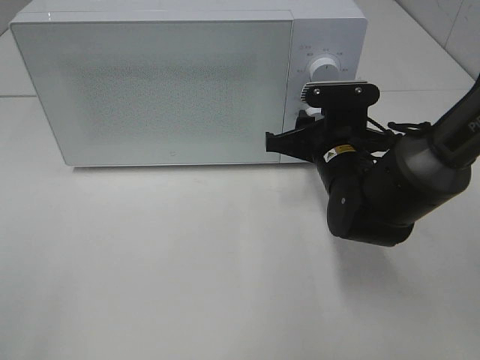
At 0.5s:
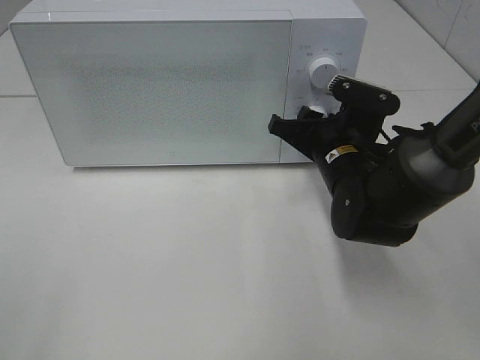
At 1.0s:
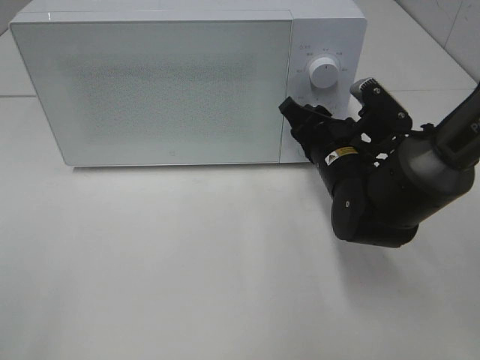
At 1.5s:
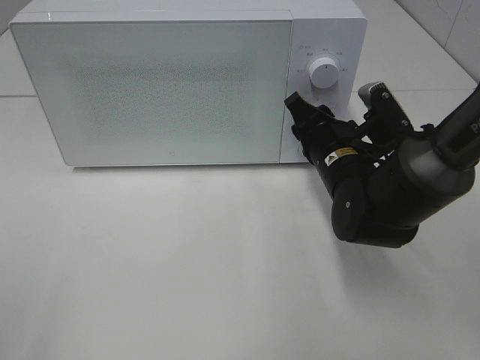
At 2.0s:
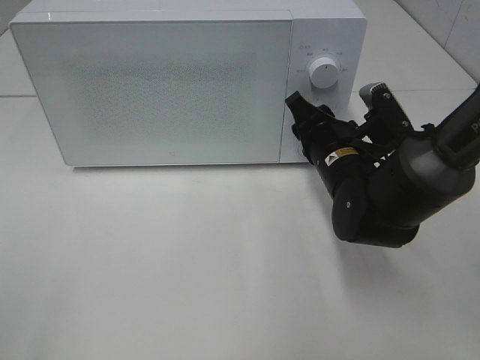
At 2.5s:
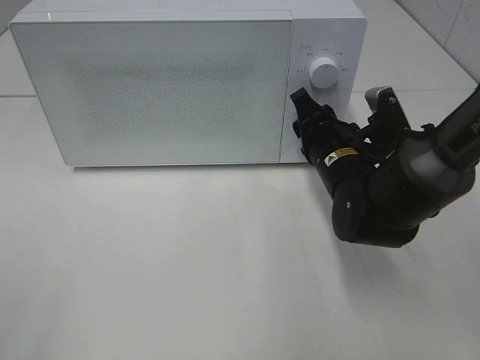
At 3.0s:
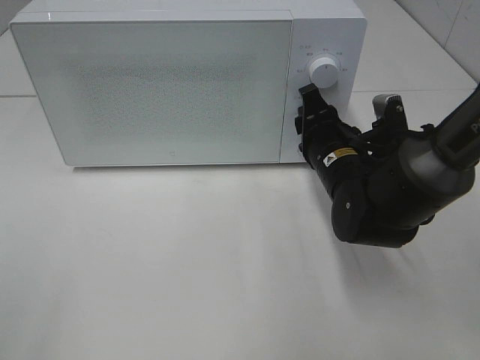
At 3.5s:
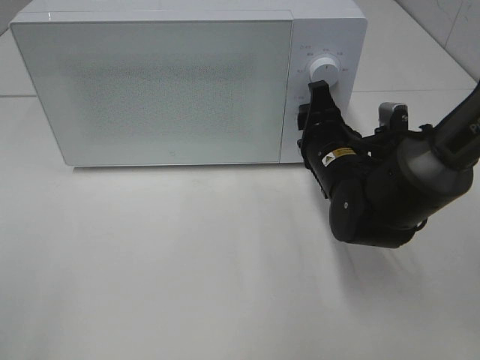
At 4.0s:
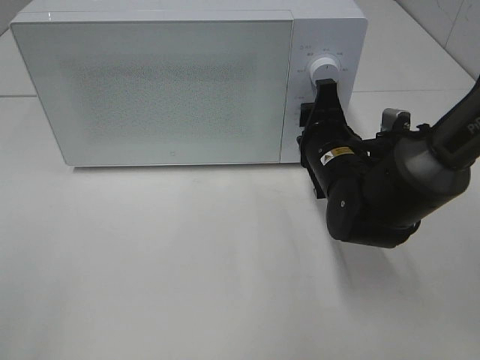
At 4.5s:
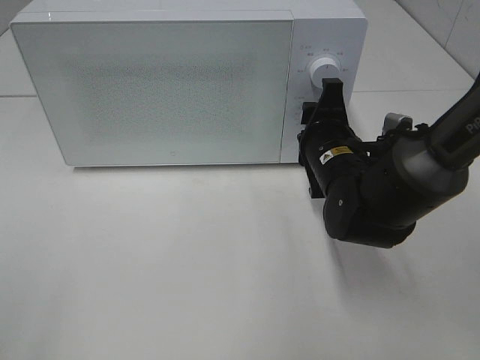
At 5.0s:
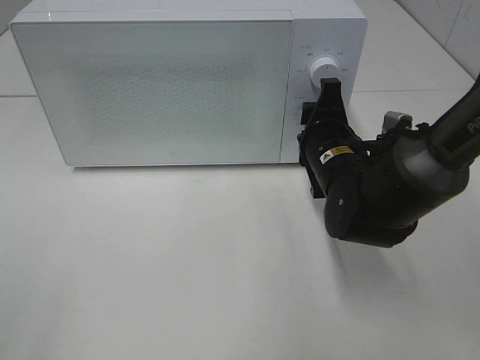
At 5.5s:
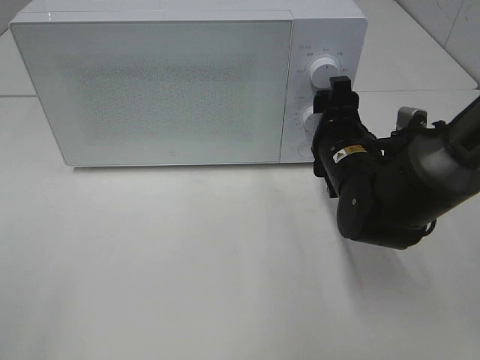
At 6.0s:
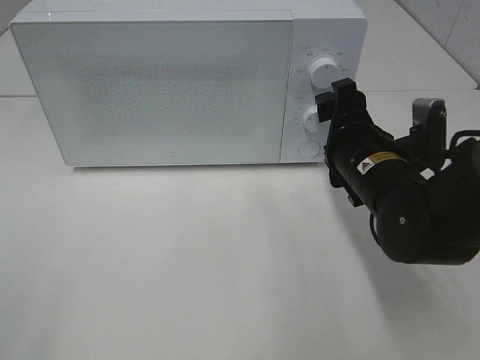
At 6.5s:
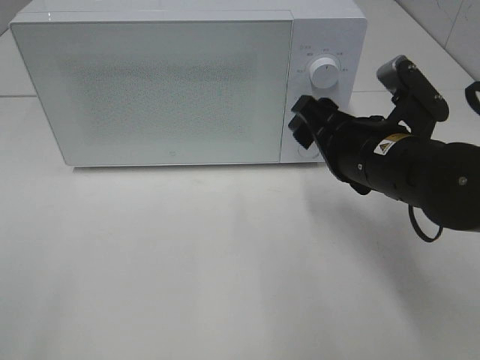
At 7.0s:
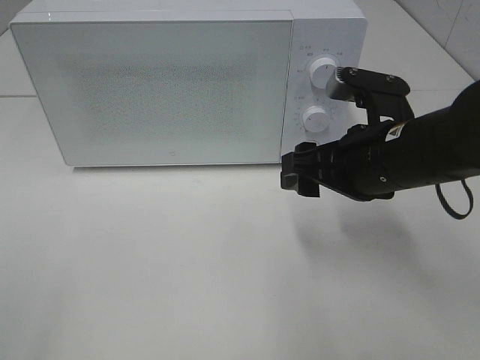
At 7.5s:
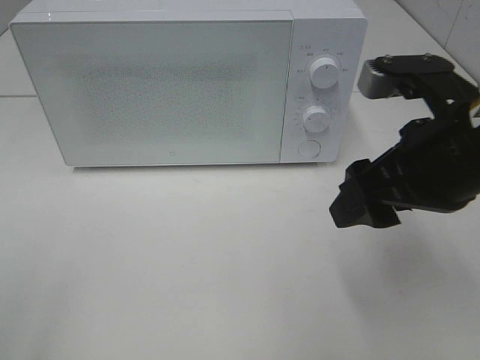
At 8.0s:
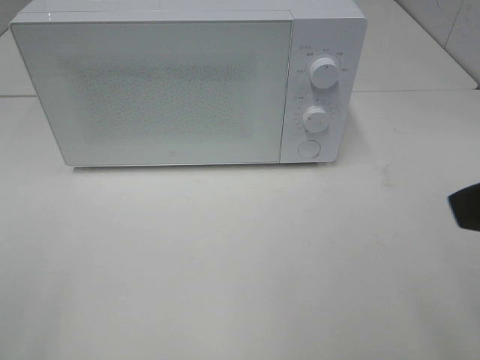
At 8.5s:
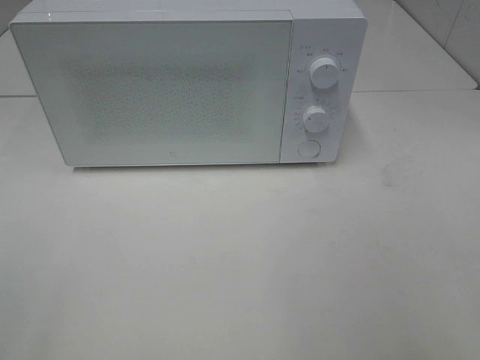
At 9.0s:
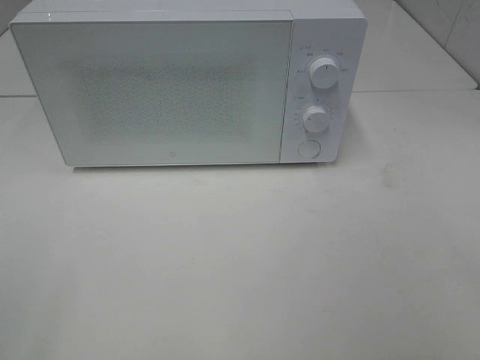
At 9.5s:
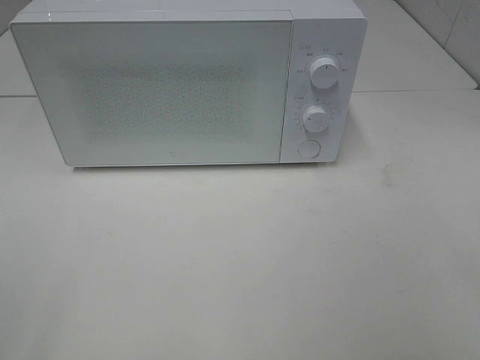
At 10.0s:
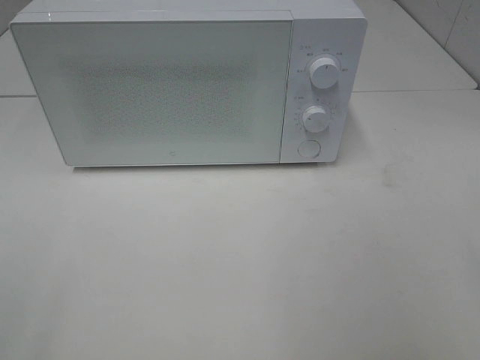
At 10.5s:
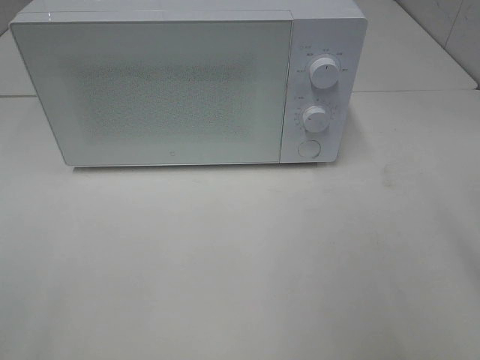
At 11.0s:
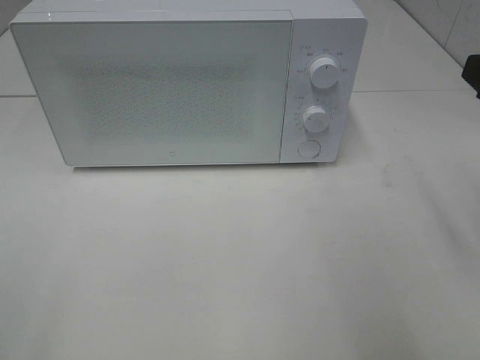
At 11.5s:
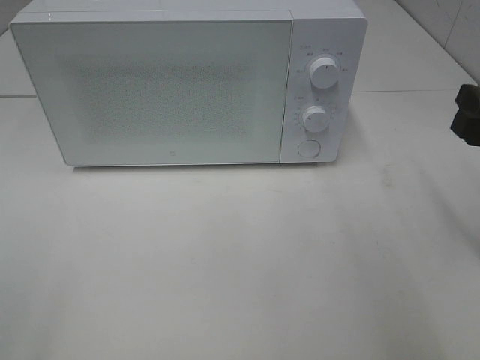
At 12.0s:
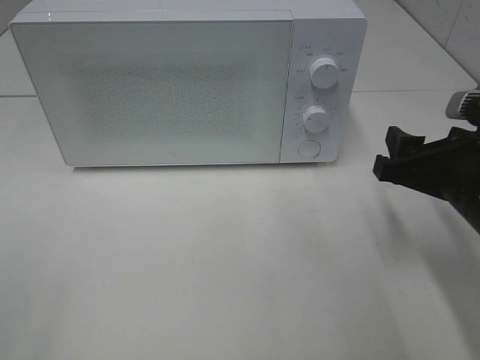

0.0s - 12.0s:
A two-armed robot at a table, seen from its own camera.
Task of the whole recording: Heat the burger.
Step, 0.0s - 5.0s: Right hand: twist timer button.
4.0s - 6.0s: The right gripper ends up roughly 5 cm from where it was, and opens.
6.0s - 8.0s: The right gripper is displaced upward and backward by some 25 cm.
8.0s - 10.0s: The right gripper travels to the right by about 5 cm.
10.0s - 12.0s: The right gripper shifts some 20 cm forward and downward.

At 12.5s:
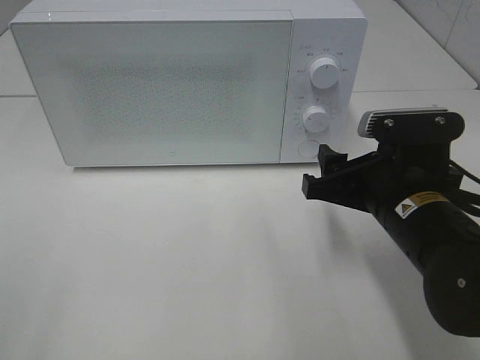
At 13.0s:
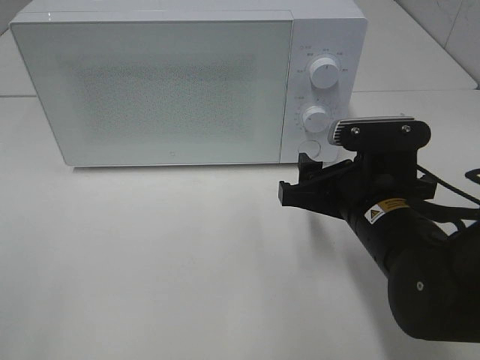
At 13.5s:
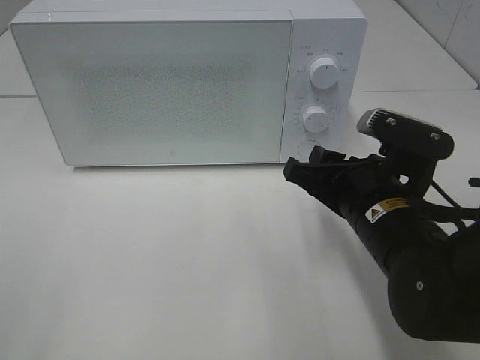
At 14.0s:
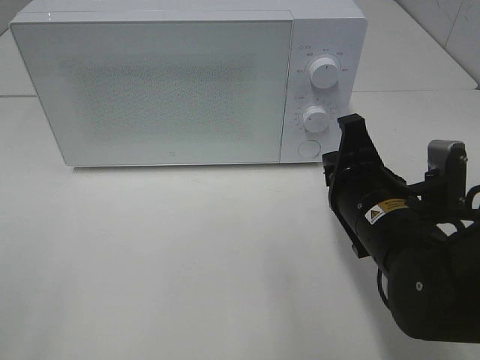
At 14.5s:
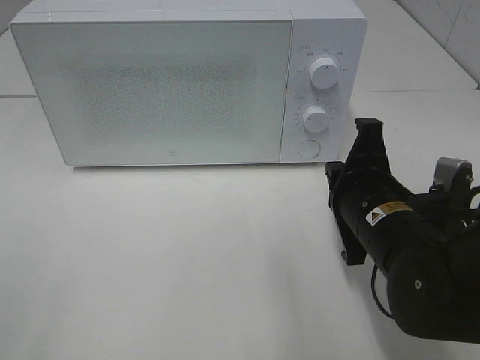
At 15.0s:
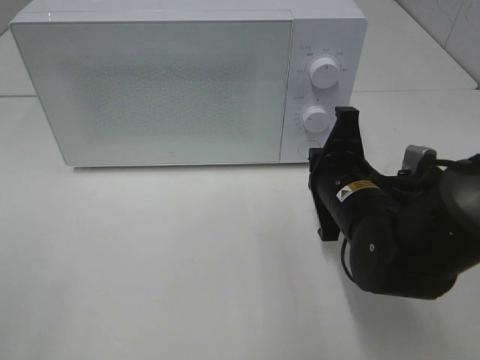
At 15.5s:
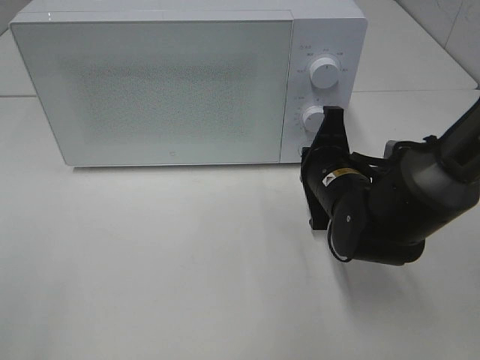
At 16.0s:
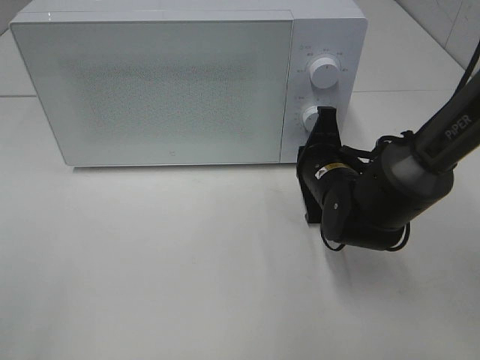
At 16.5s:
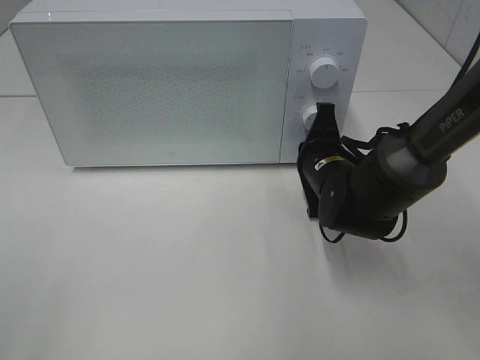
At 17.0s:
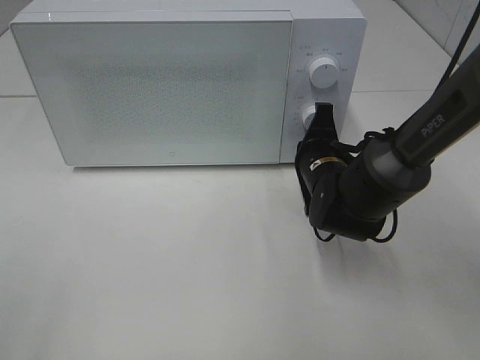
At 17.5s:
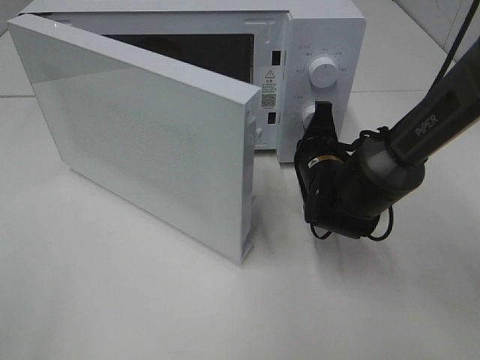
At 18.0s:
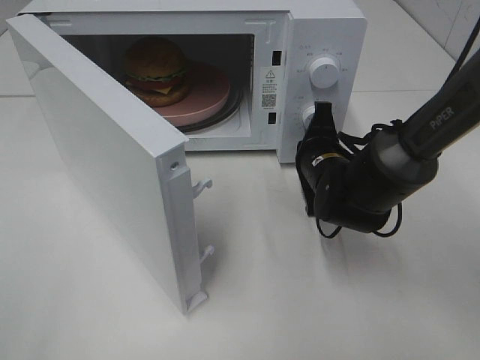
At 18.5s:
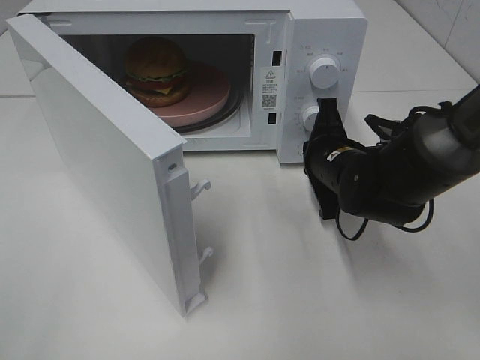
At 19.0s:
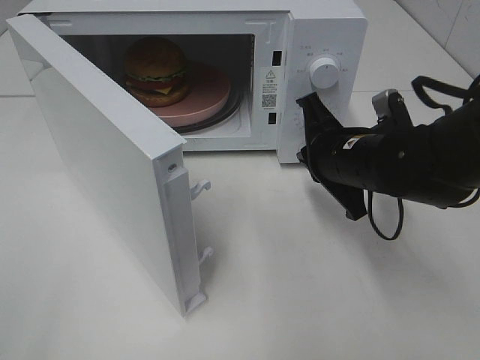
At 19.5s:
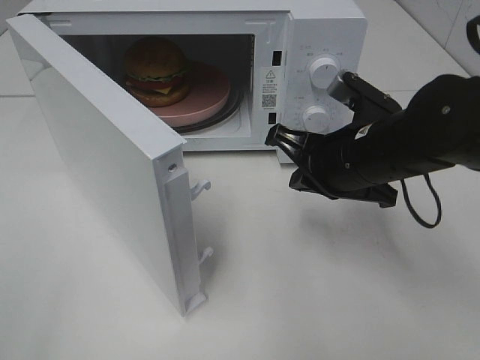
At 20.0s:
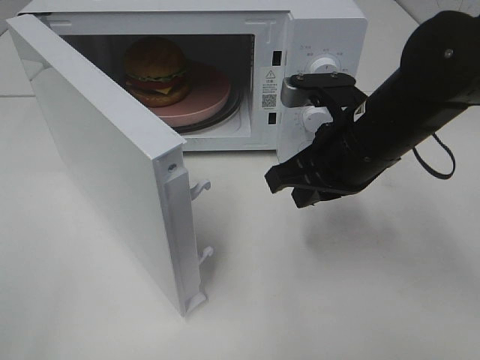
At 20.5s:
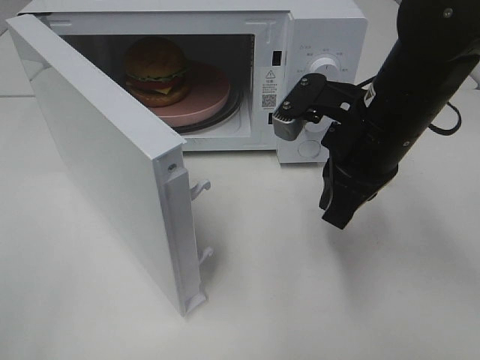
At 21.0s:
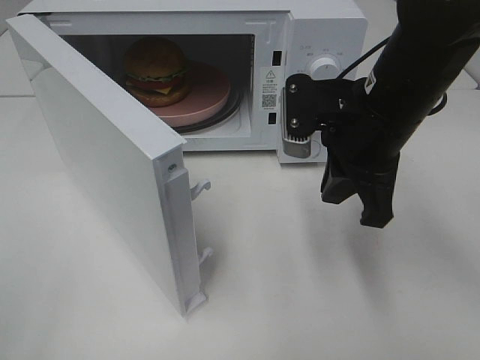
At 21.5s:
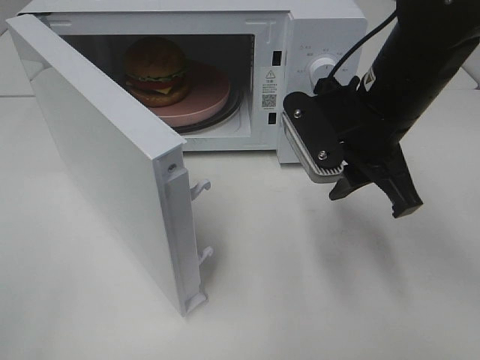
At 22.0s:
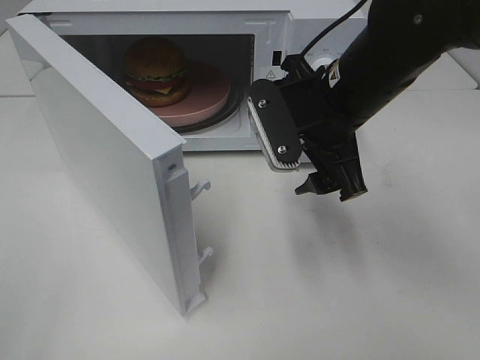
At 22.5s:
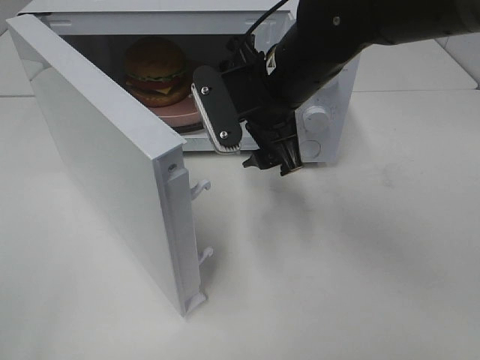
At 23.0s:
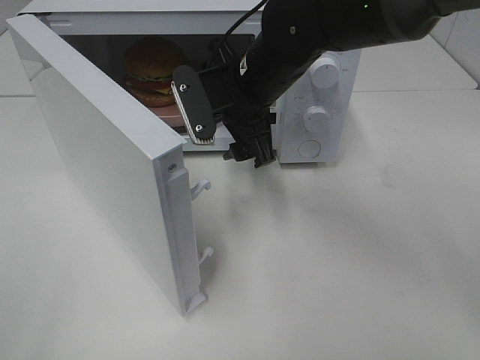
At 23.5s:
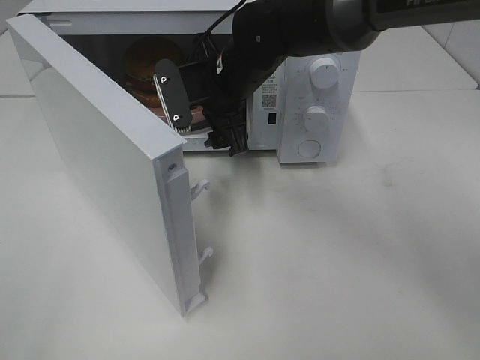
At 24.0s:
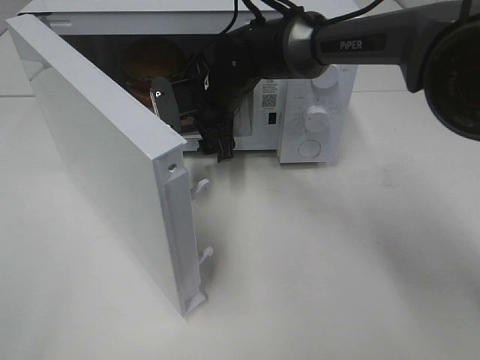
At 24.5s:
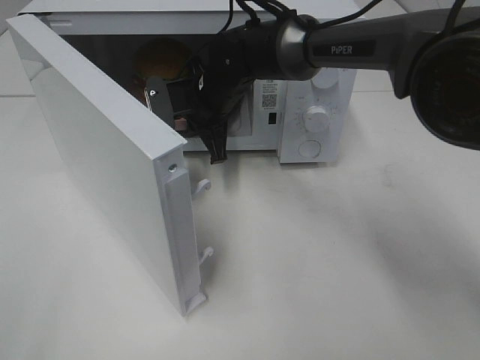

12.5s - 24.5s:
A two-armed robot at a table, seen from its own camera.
Task of the whole recording: Heat the burger.
Step, 12.5s - 18.0s: Right hand: press the switch.
12.5s - 14.5s: The right gripper closes.
14.5s - 16.5s: The right gripper travels forward by roughly 10 cm.
18.5s - 20.5s: The right gripper shifts approximately 15 cm upward and backward.
20.5s - 22.5s: The right gripper is displaced to the left and forward by some 10 cm, and opens.
22.5s - 24.5s: The right gripper is displaced forward, downward and to the left by some 15 cm, and closes.

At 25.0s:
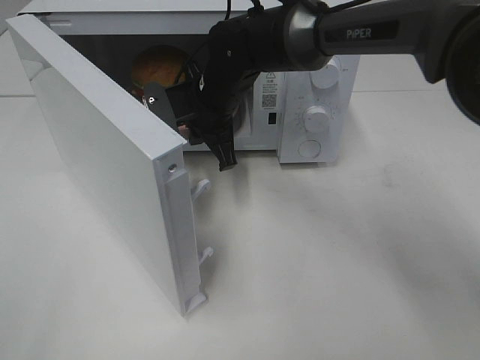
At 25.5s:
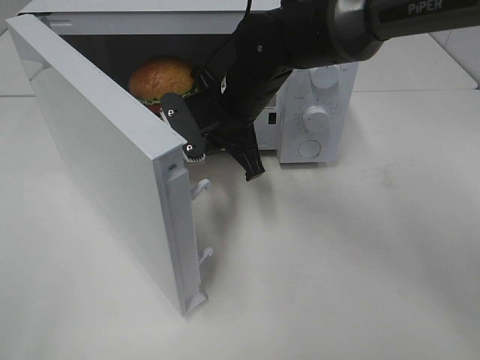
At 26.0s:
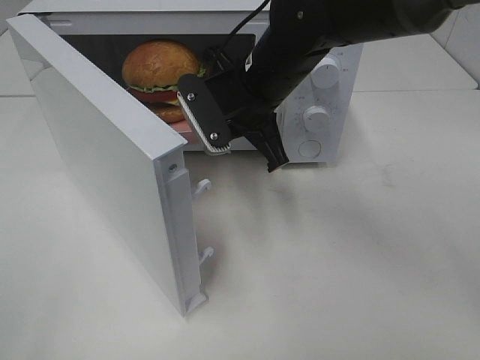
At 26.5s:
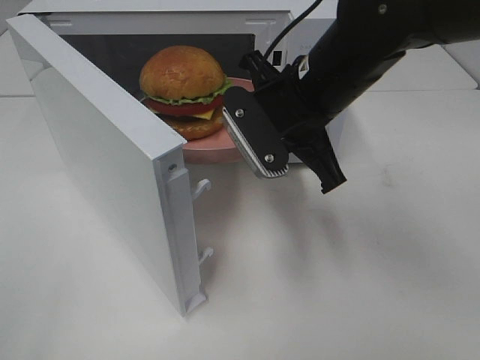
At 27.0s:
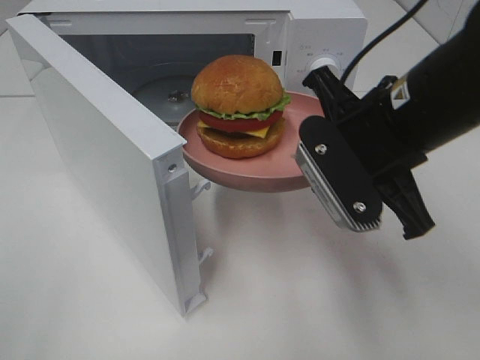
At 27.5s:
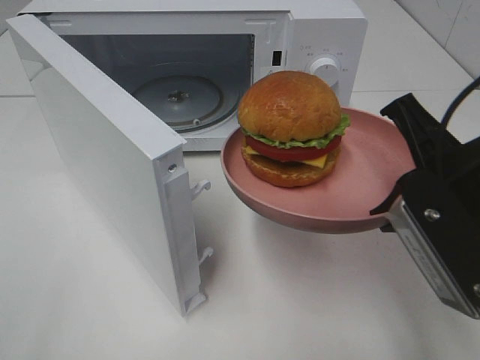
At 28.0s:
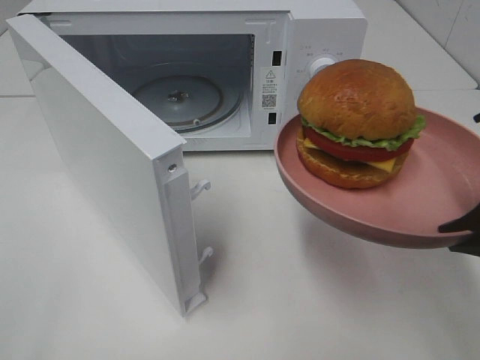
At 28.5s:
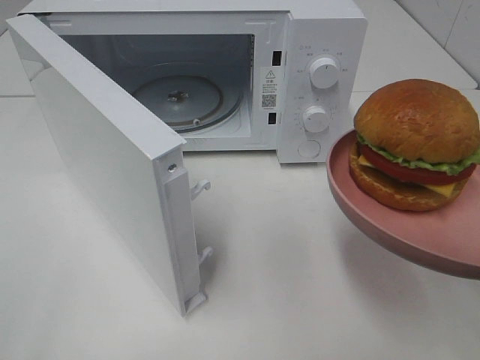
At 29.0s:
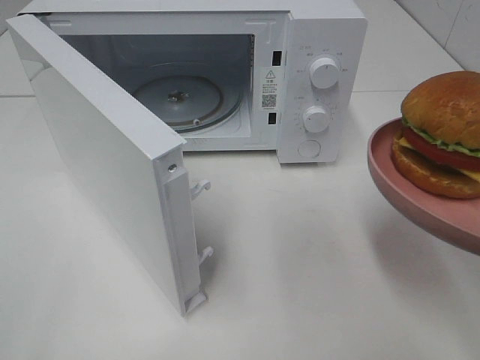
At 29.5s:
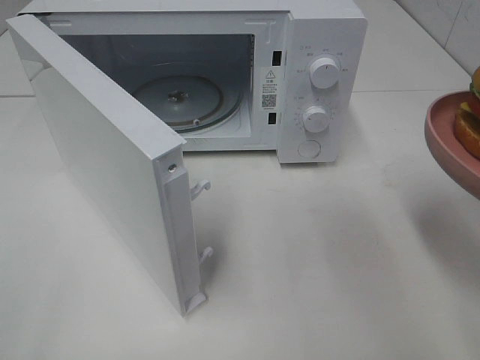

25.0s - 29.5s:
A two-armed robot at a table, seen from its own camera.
Task of the whole recording: Heat the burger.
25.0s - 27.0s: The right gripper heads backward, to the right and upward, covering about 25 cm.
27.0s - 29.5s: The right gripper travels to the right and backward by some 15 cm.
